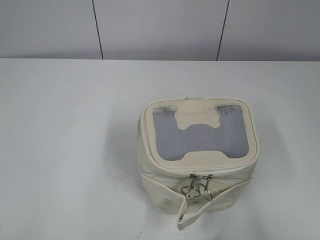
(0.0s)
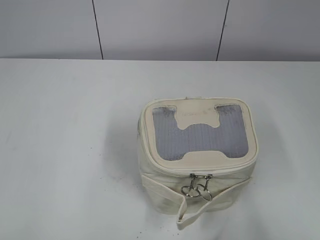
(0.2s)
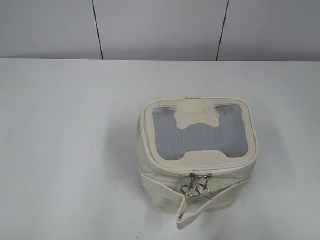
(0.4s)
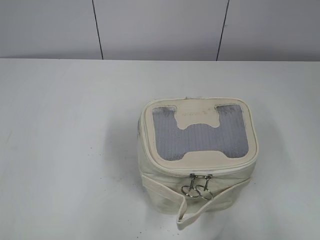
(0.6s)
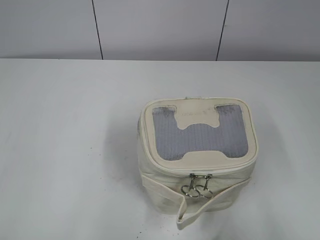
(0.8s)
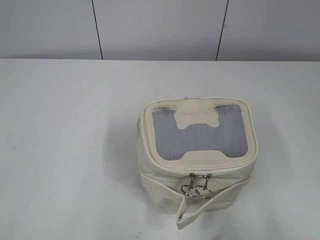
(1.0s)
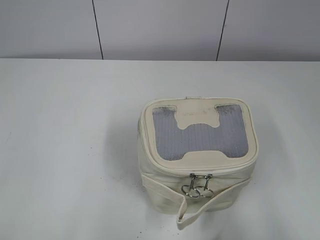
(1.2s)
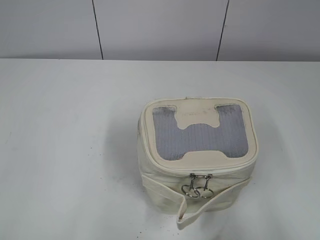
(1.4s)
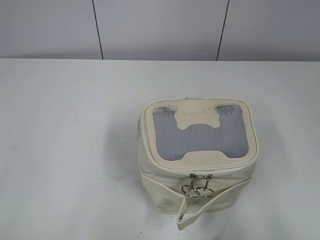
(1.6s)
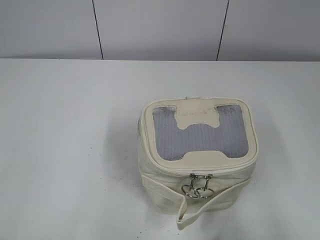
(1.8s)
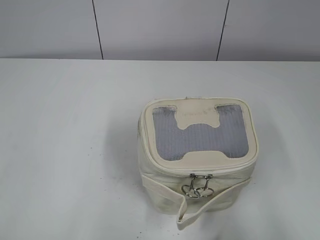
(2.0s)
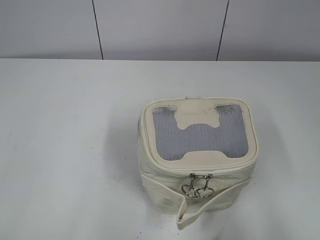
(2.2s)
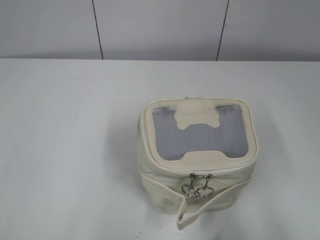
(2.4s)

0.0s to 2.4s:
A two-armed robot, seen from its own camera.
1.2s to 2.4s: Both grippers stay put.

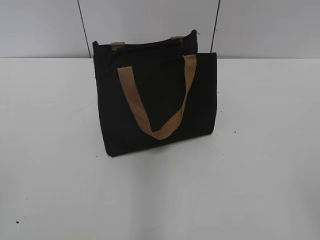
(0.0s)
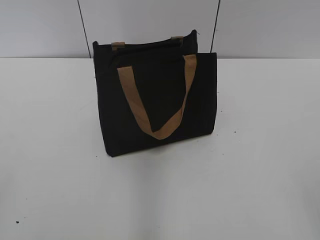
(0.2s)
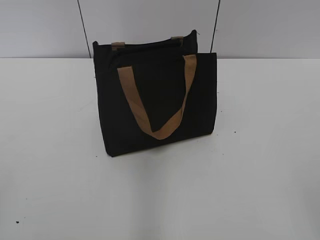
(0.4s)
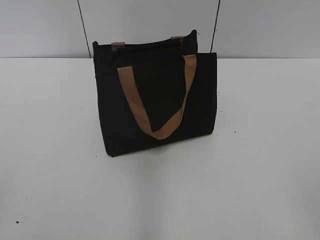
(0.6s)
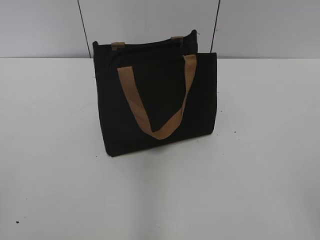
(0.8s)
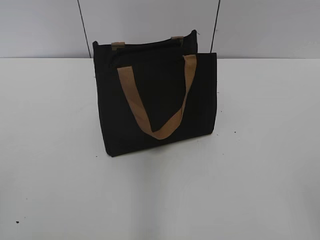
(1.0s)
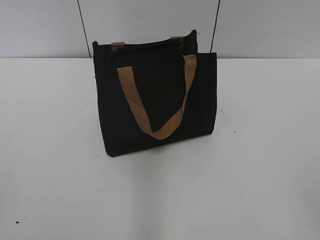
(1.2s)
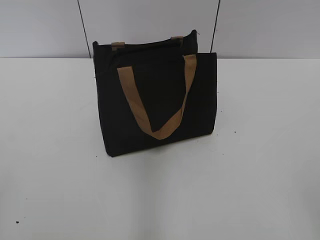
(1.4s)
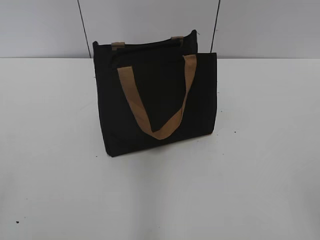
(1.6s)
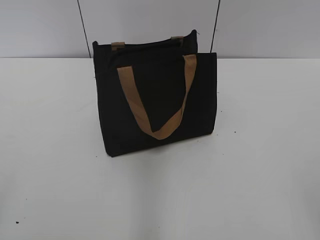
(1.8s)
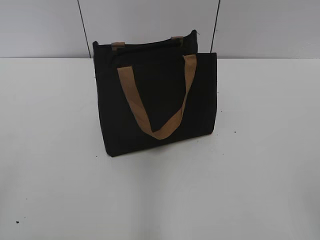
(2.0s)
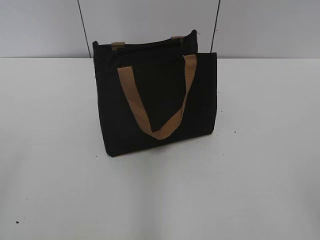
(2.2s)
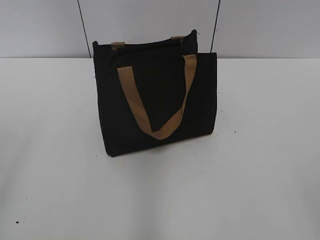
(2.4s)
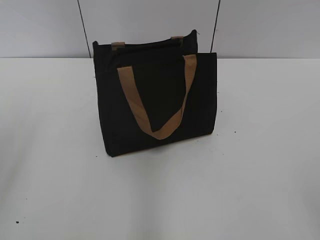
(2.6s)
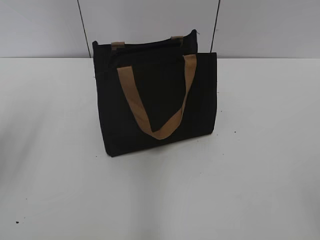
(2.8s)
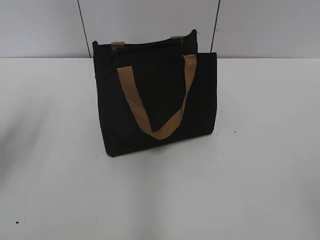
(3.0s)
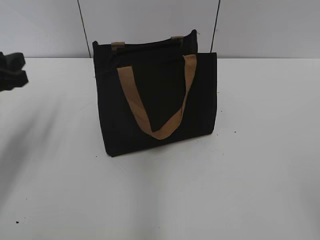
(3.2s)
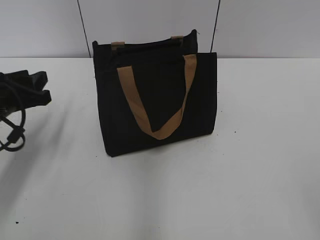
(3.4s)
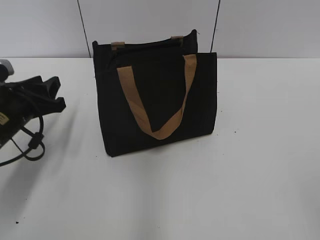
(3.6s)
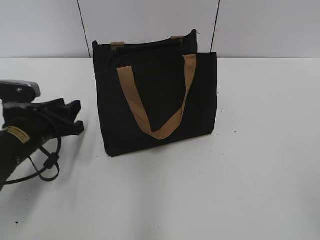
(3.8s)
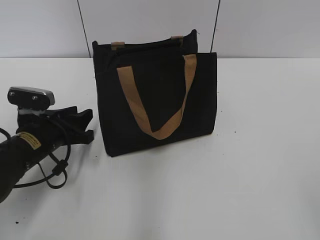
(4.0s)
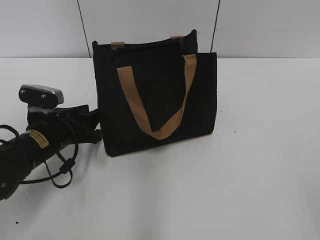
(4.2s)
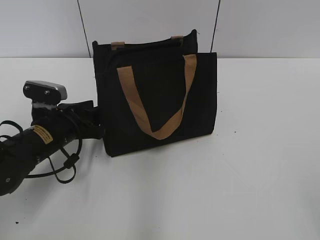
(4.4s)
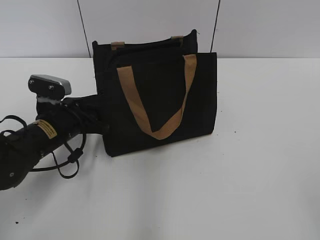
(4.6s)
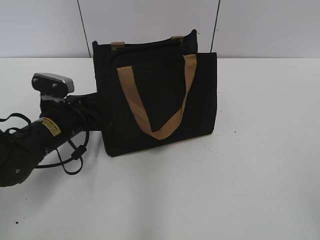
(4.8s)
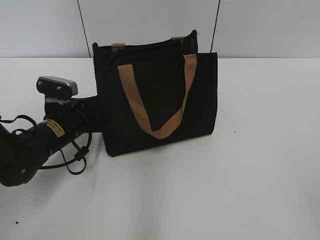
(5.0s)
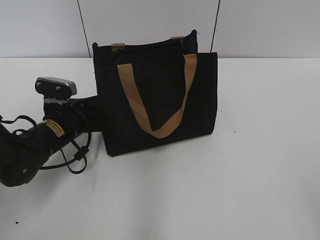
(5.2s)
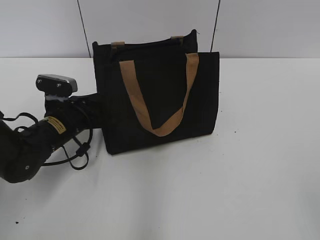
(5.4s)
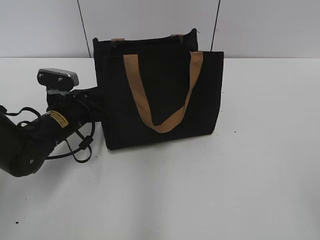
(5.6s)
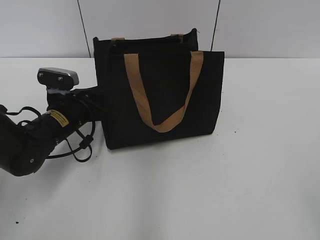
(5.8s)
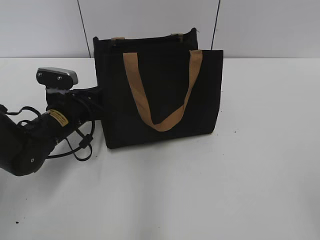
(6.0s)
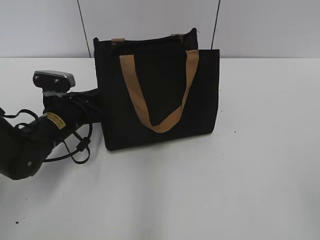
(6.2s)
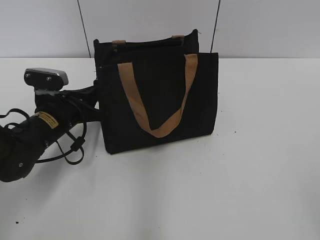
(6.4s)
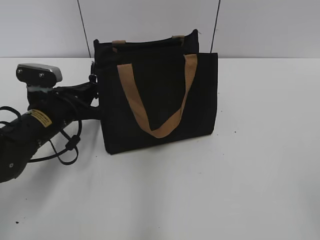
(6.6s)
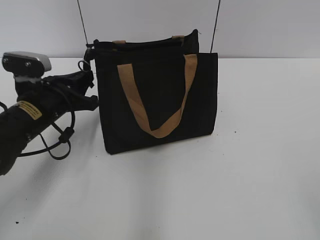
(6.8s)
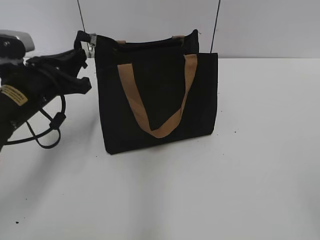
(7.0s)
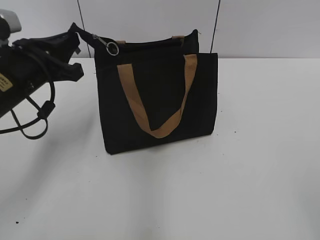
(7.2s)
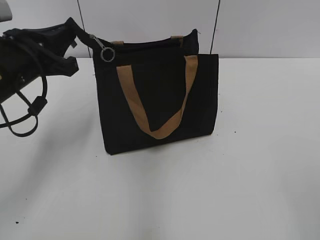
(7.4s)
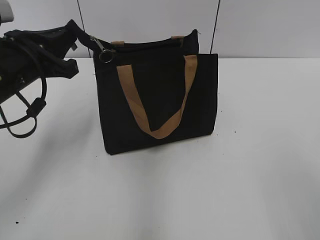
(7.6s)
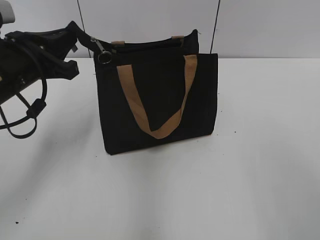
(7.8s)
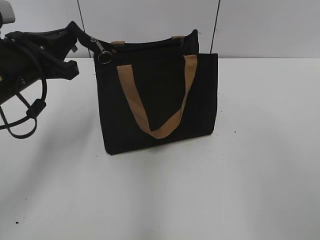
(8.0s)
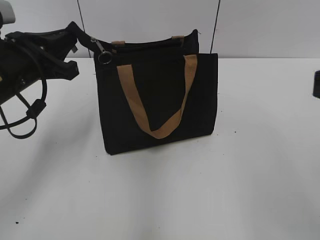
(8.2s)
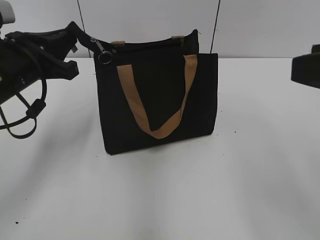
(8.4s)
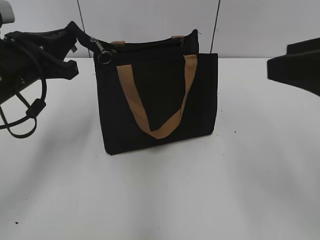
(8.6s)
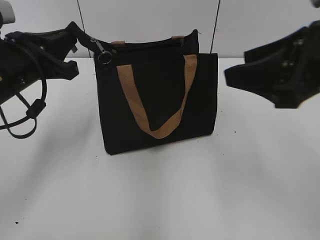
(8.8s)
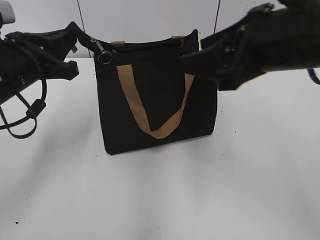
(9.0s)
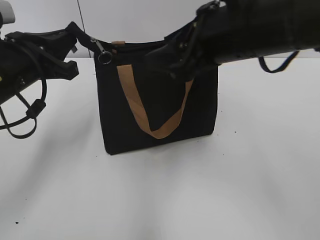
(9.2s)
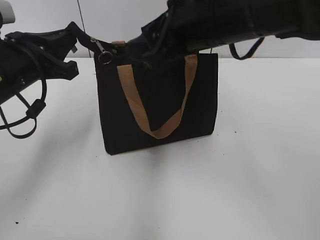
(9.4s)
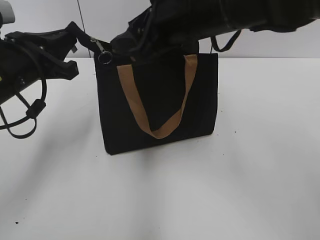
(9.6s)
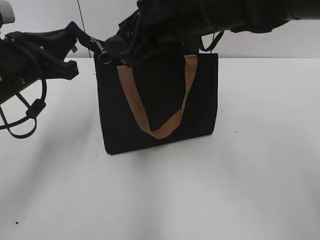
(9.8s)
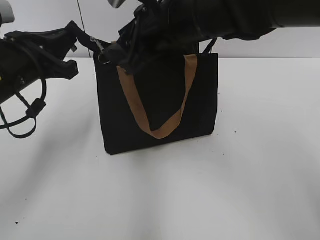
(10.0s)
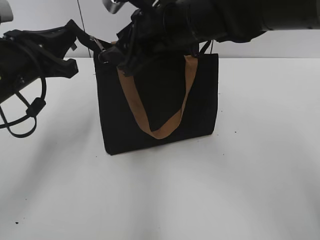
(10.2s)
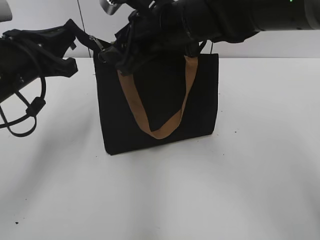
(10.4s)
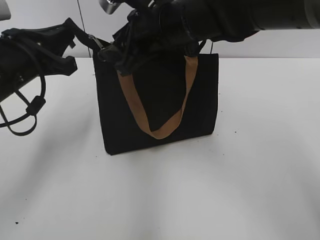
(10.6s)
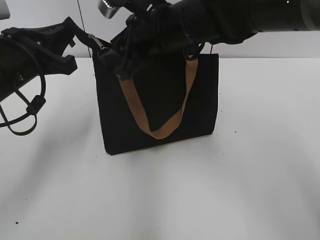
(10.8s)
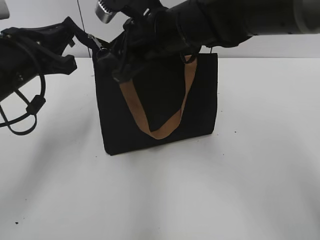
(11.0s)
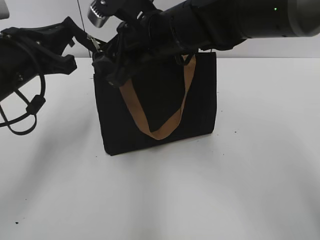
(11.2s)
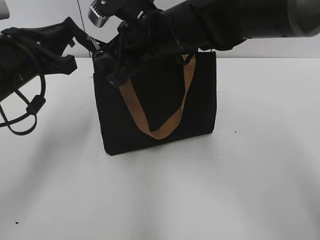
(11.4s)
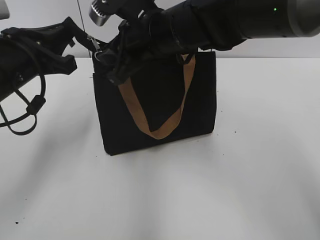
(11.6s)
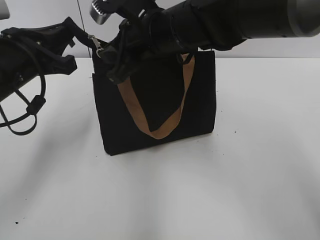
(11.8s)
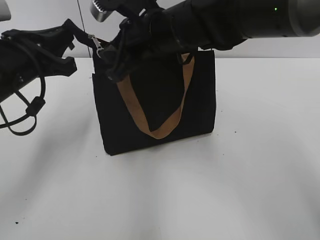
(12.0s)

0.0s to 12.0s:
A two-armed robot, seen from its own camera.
1.6s to 3.0s: The left gripper shifts about 25 cm forward.
3.0s to 4.4s: The left gripper travels downward and to the right by approximately 20 cm.
4.4s to 6.0s: The left gripper closes its fingers.
6.0s to 7.6s: The left gripper goes some 15 cm upward and backward.
7.6s to 9.0s: The right gripper is displaced forward and to the left by roughly 25 cm.
9.0s to 10.4s: The right gripper is displaced to the left and forward by approximately 15 cm.
10.4s to 12.0s: The right gripper closes up.

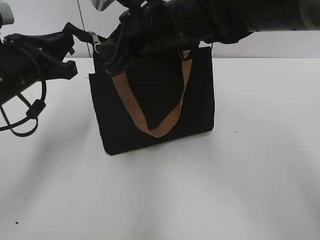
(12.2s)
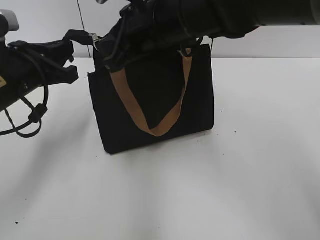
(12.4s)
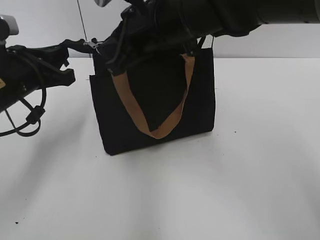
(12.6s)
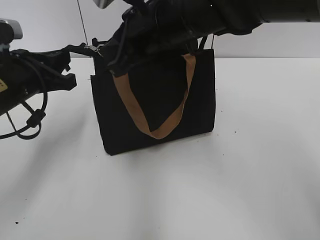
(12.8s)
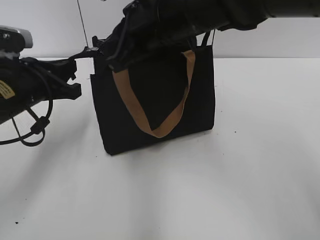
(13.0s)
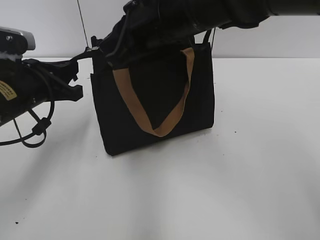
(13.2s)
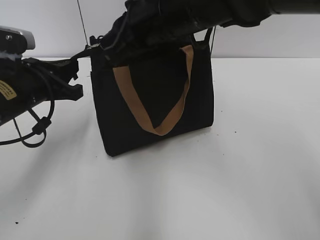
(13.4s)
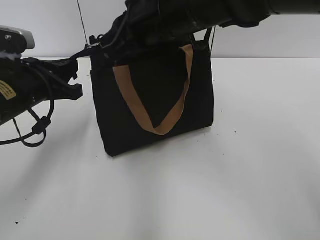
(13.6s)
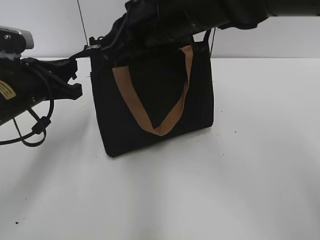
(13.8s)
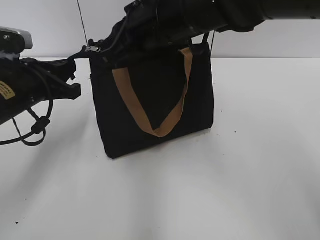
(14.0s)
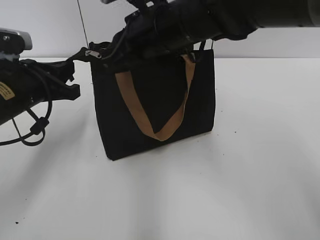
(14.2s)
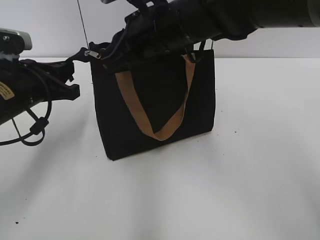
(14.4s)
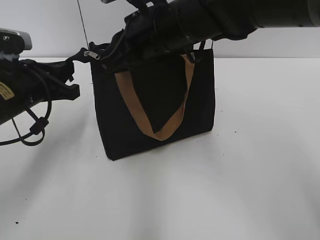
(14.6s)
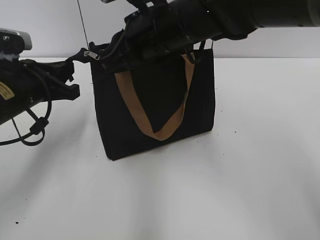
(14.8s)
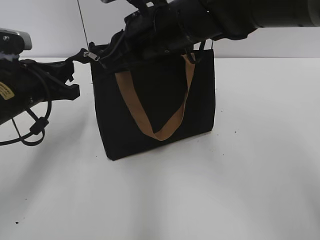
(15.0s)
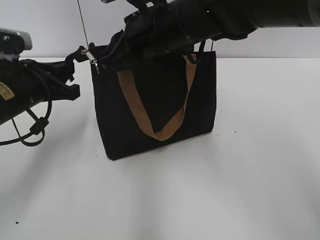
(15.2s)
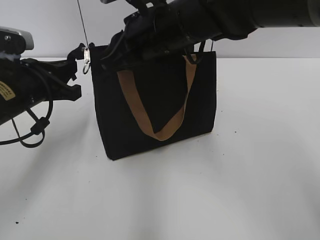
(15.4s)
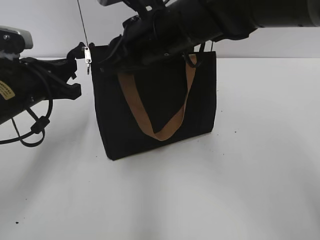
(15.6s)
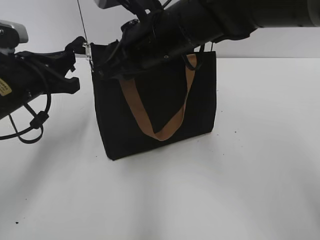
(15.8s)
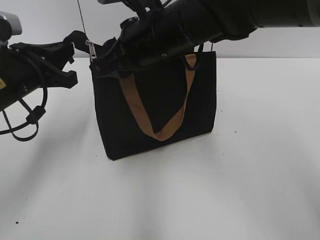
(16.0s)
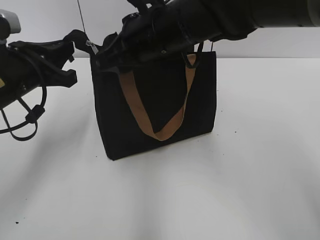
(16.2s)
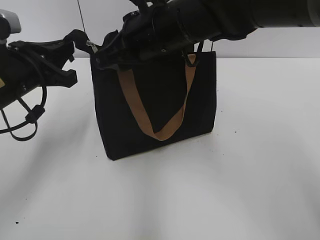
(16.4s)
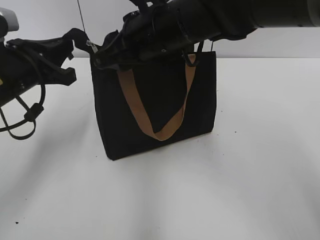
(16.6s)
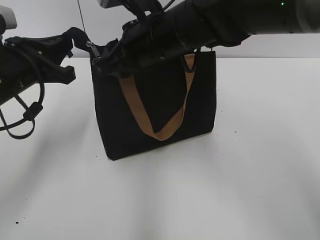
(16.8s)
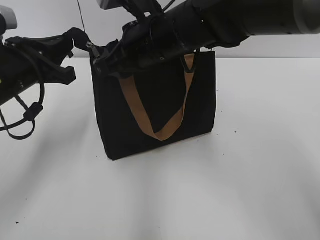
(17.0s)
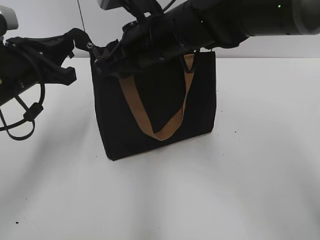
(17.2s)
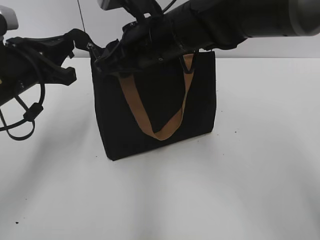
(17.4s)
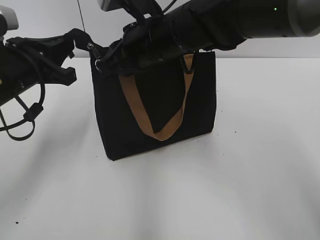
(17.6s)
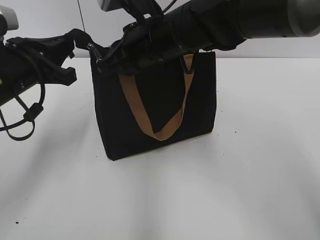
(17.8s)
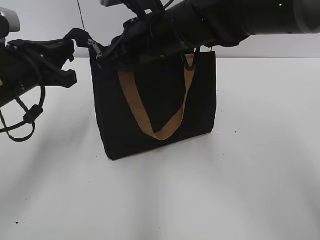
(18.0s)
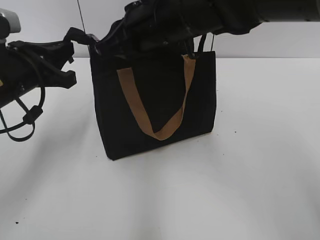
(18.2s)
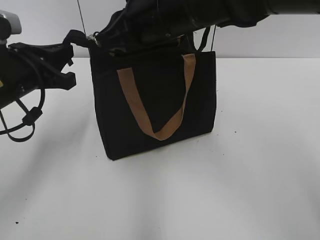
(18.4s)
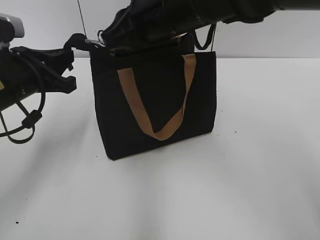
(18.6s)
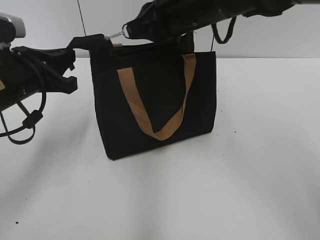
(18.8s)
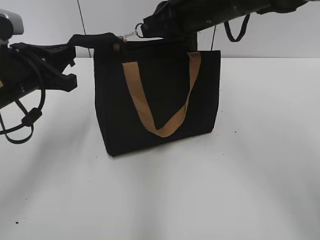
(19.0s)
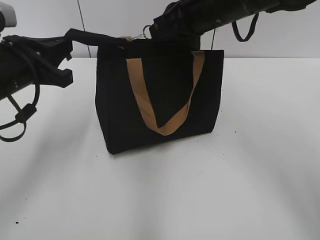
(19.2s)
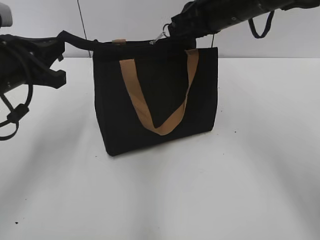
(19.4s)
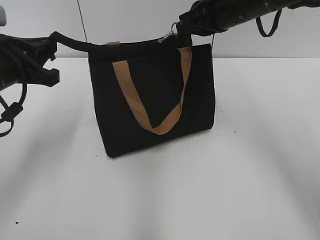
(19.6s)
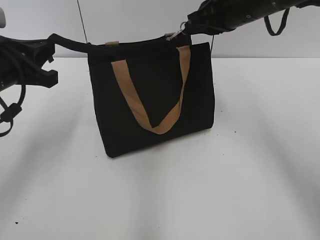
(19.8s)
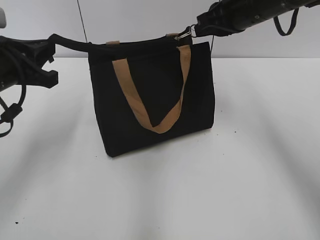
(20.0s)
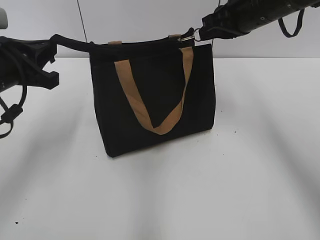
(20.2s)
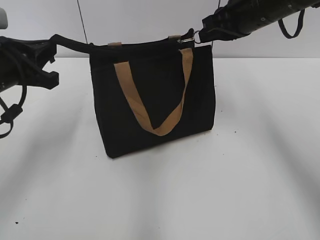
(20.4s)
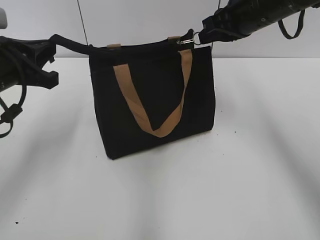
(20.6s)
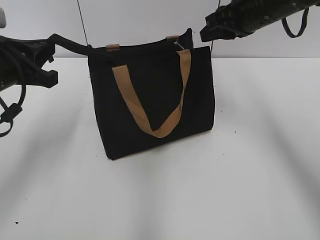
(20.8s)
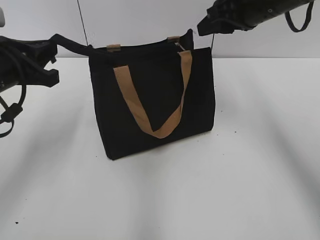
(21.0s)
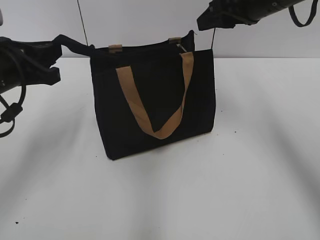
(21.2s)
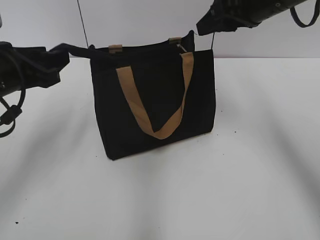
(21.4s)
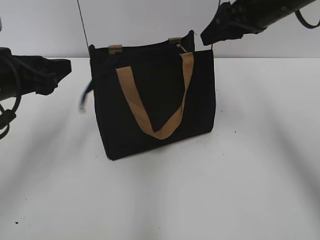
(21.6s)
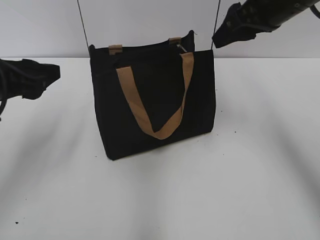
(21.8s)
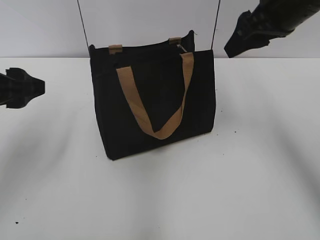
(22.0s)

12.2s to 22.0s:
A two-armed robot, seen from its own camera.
Step, 12.2s to 20.6s: Zip up the bag with your right hand.
Step, 20.8s to 21.6s: Grab the zipper with your left hand.
12.2s to 15.0s: The grippers make only small movements.
15.0s to 16.4s: The right gripper opens.
16.4s to 17.8s: The right gripper closes its fingers.
17.8s to 19.2s: The right gripper travels to the right by roughly 10 cm.
19.2s to 20.6s: The right gripper heads to the right, covering about 5 cm.
20.6s to 22.0s: The left gripper opens its fingers, while the right gripper ends up some 5 cm from where it was, and opens.
